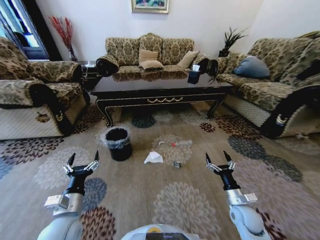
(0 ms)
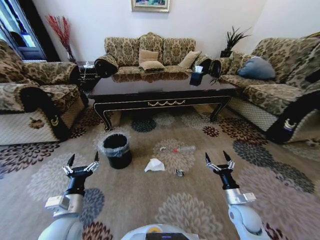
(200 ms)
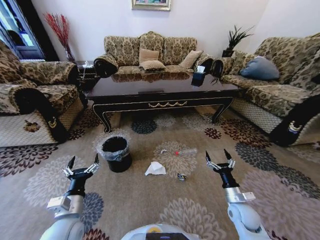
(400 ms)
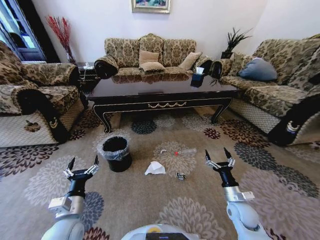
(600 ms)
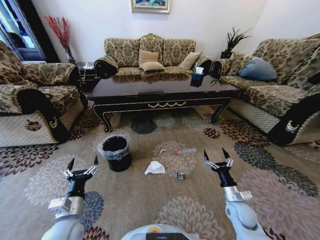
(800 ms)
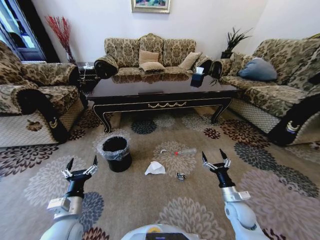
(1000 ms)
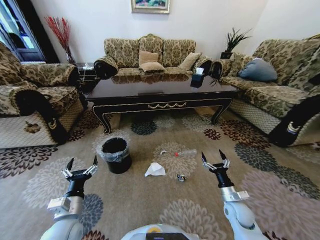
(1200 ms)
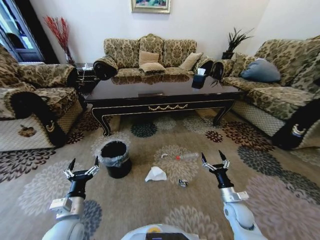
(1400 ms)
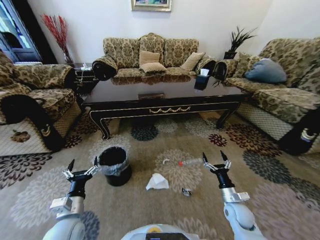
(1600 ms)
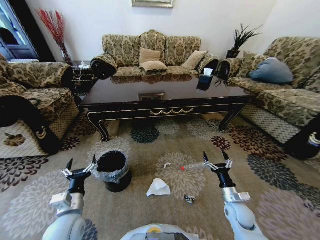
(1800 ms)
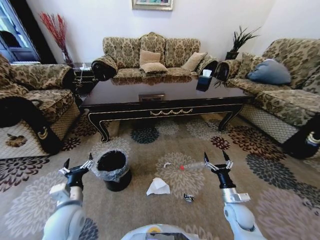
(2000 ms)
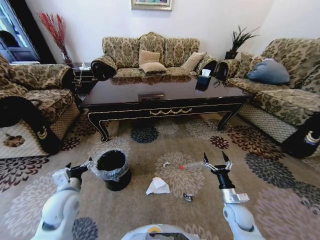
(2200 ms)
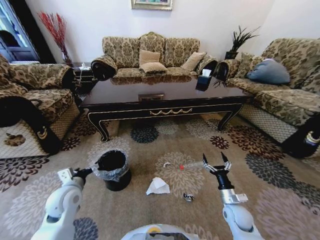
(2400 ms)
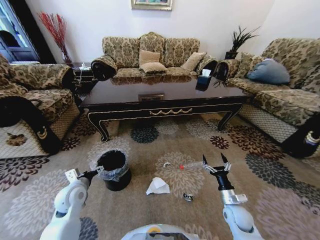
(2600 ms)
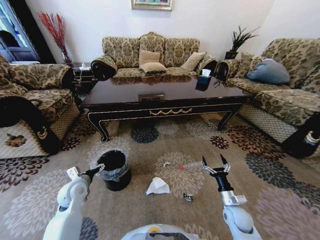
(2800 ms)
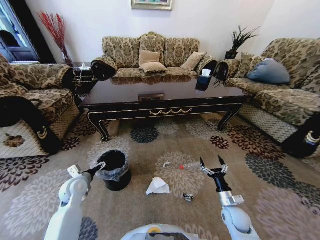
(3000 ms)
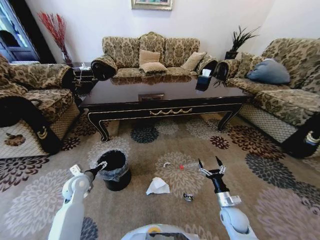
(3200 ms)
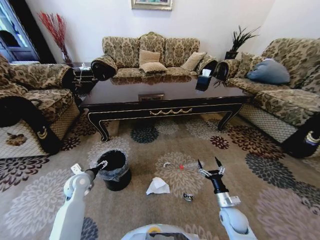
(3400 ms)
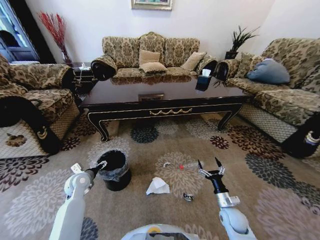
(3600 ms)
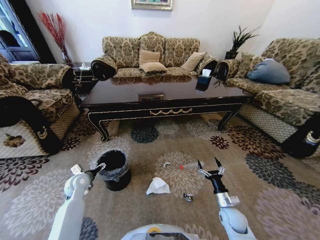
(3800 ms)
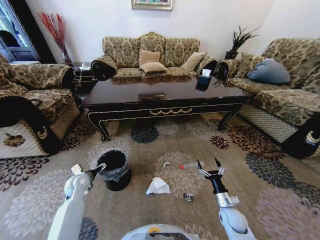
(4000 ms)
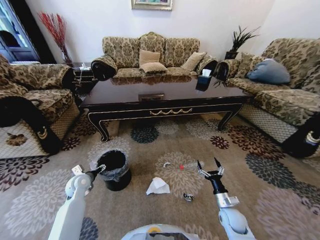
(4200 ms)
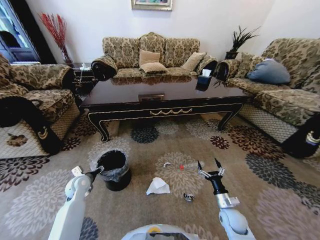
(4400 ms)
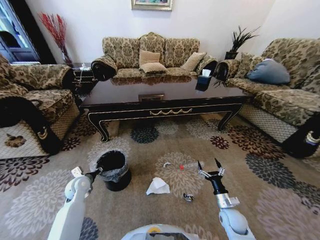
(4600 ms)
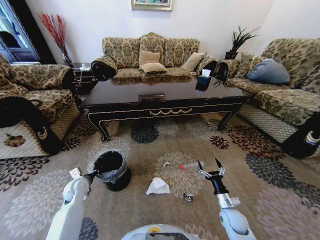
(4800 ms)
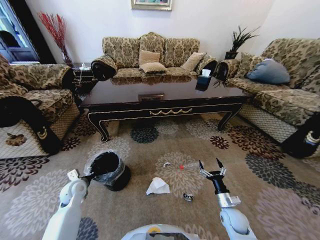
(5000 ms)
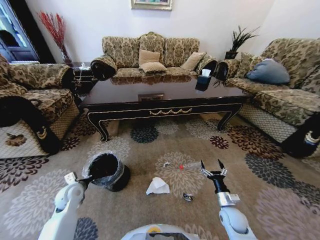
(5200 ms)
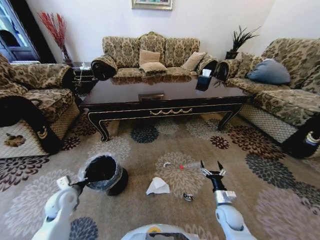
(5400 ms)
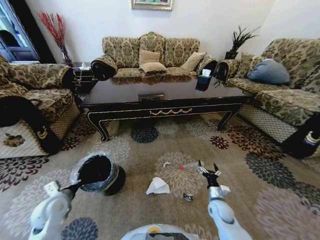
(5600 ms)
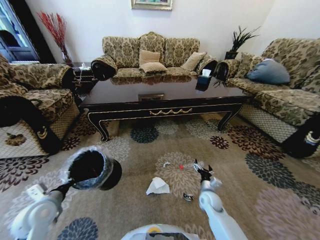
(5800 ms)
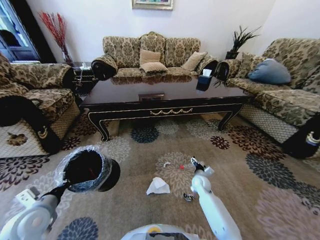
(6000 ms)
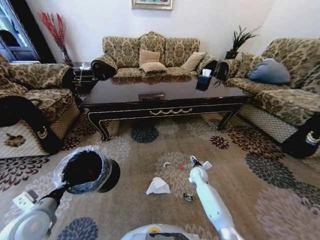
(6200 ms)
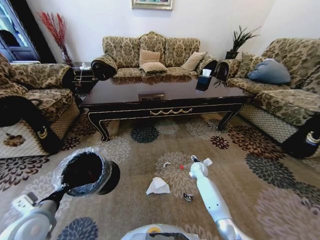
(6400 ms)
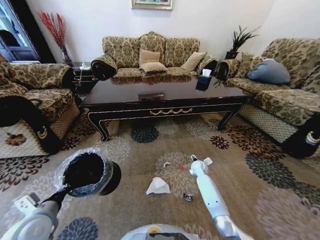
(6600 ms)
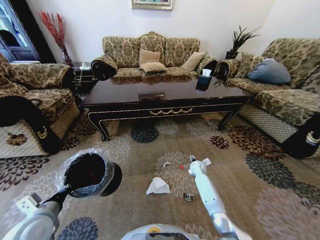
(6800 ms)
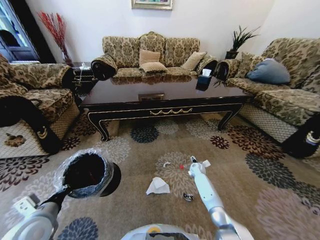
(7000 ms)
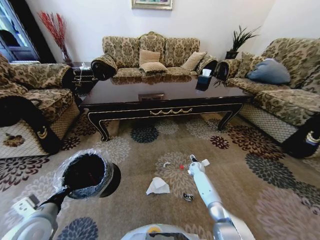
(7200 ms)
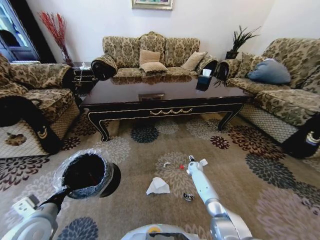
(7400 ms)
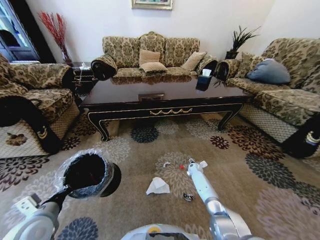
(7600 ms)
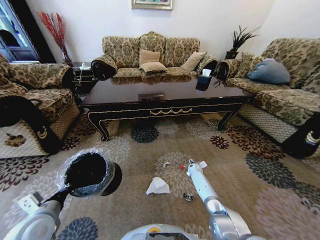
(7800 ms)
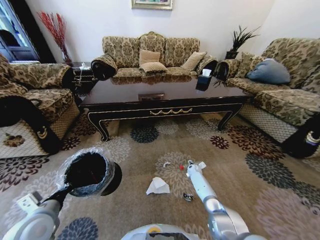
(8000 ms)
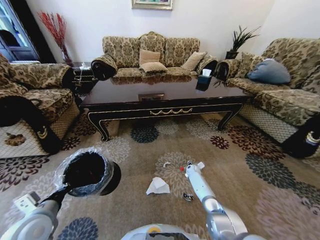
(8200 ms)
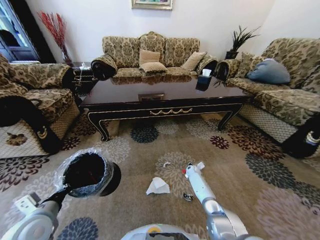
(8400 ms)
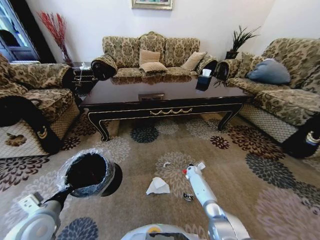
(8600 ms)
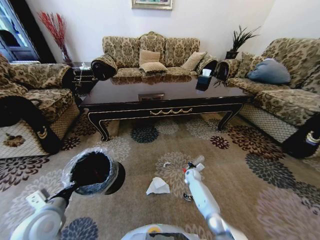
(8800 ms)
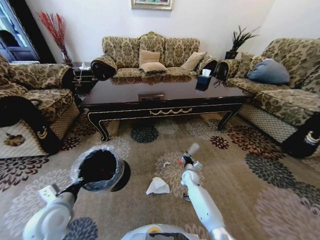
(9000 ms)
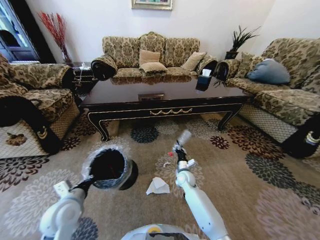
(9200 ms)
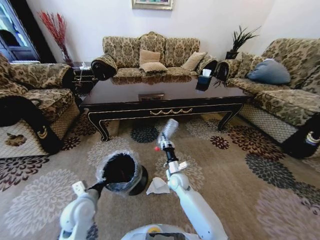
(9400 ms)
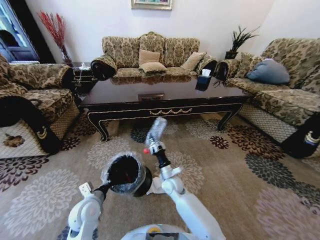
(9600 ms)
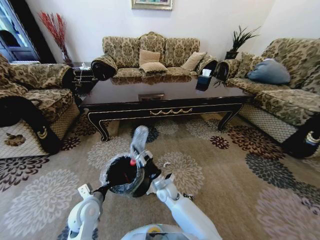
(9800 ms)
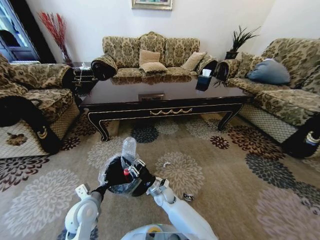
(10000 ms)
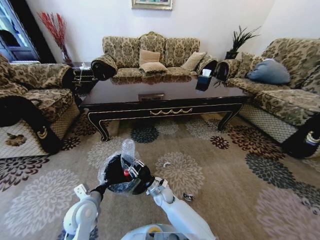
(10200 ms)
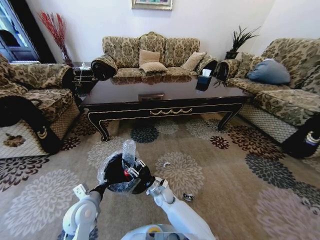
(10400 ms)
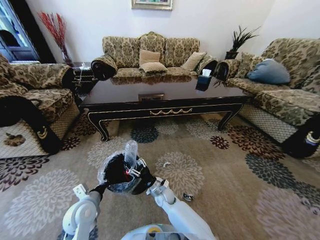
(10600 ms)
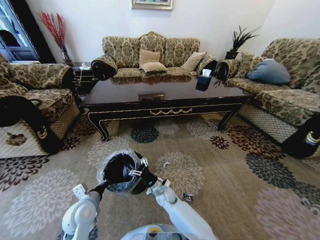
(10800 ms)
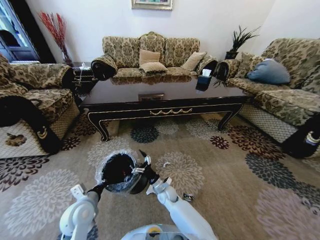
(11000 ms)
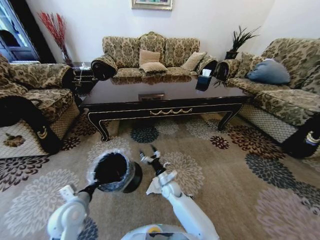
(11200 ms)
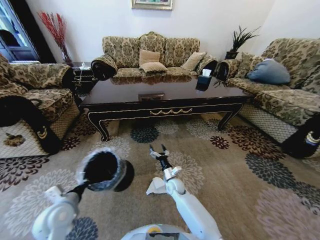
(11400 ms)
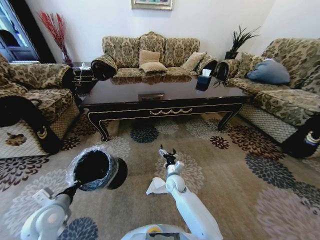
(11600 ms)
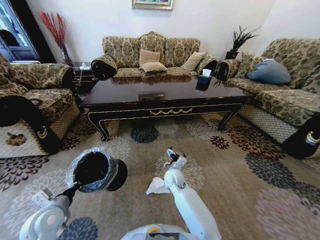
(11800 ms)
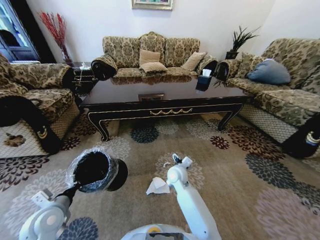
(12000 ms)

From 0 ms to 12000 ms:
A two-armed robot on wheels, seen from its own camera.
Task of the whole recording: Move to the front of the table and pick up the trash from the floor, then place it into the trash bin.
From 1600 ms to 3000 ms: The left gripper shifts about 15 cm forward and to the left.
From 3000 ms to 4400 ms: The left gripper shifts by some 5 cm.
From 4400 ms to 6000 ms: The left gripper shifts some 20 cm backward and upward, and closes. Meanwhile the right gripper goes approximately 20 cm forward and to the left.
From 6000 ms to 7600 ms: The right gripper travels forward and downward by approximately 15 cm.
From 7600 ms to 9000 ms: The right gripper heads backward, to the left and upward, covering approximately 10 cm, and closes.
From 9000 ms to 10400 ms: The right gripper moves to the left and backward, about 20 cm. Meanwhile the left gripper travels to the right and downward by roughly 10 cm.
From 10400 ms to 12000 ms: The left gripper moves to the left, approximately 10 cm. The right gripper shifts approximately 15 cm upward, to the right and forward, and opens its fingers.

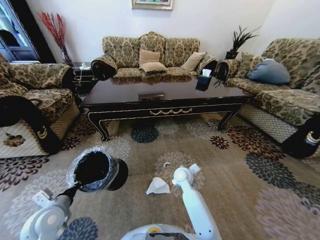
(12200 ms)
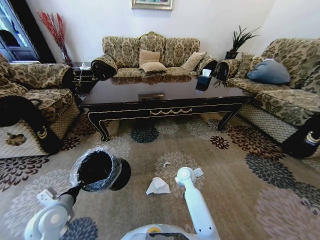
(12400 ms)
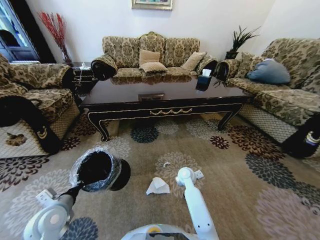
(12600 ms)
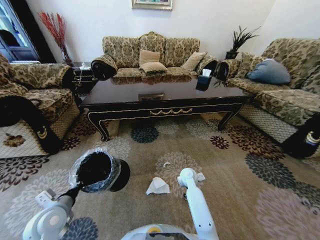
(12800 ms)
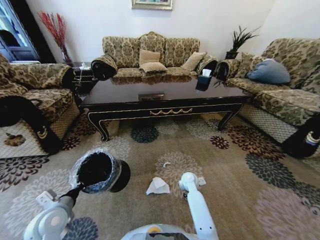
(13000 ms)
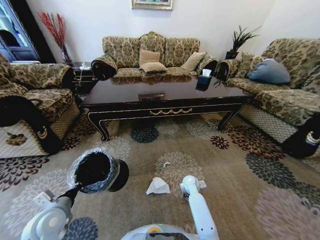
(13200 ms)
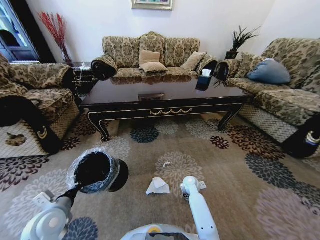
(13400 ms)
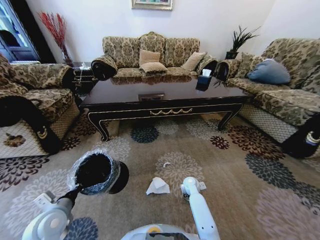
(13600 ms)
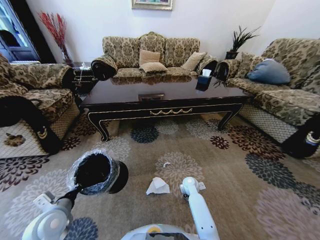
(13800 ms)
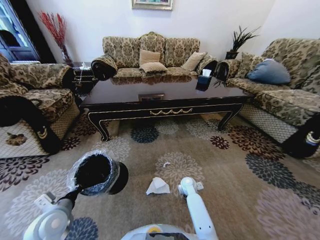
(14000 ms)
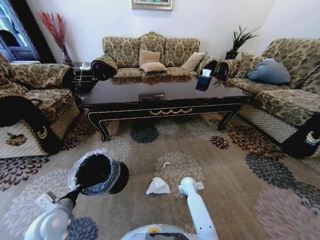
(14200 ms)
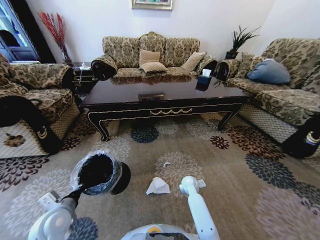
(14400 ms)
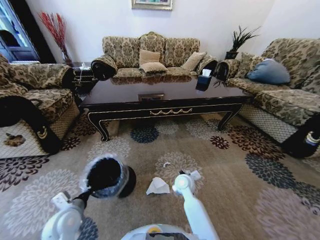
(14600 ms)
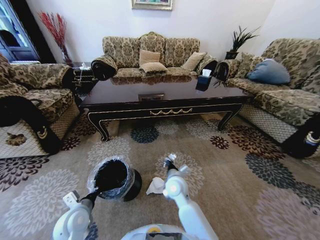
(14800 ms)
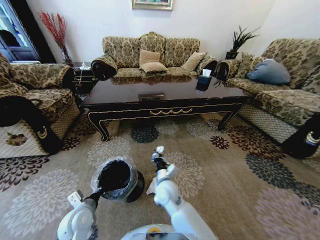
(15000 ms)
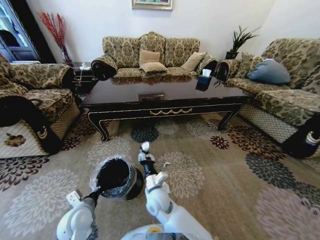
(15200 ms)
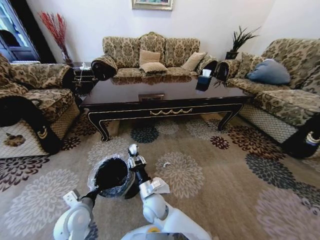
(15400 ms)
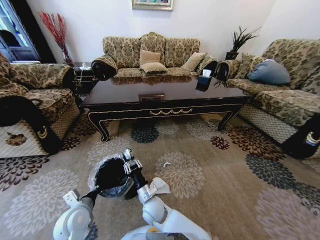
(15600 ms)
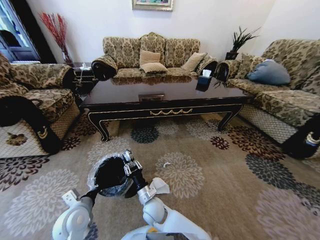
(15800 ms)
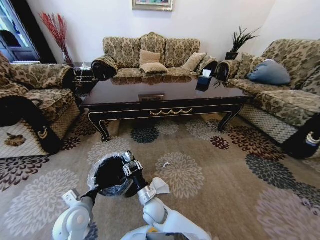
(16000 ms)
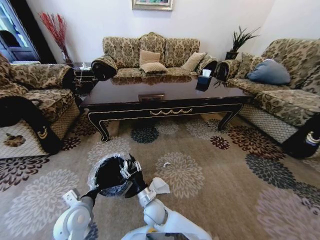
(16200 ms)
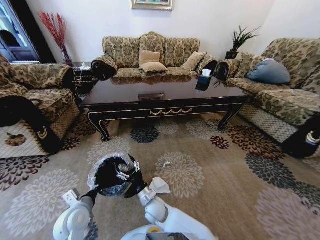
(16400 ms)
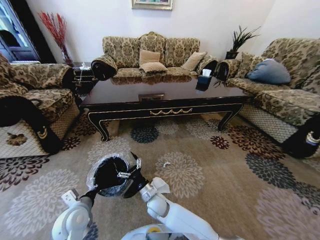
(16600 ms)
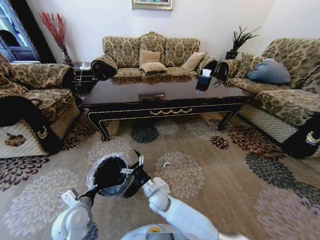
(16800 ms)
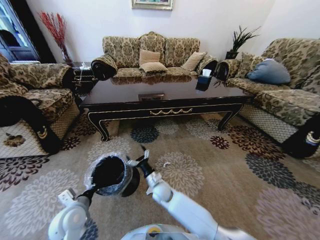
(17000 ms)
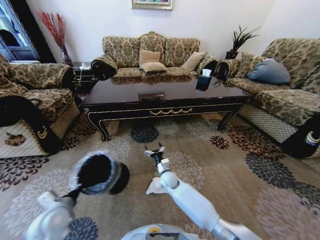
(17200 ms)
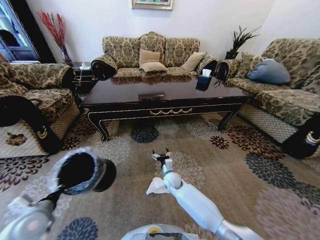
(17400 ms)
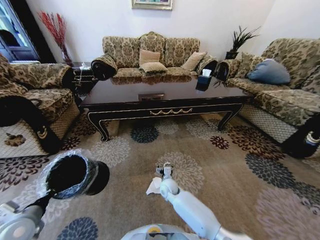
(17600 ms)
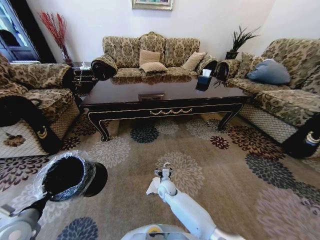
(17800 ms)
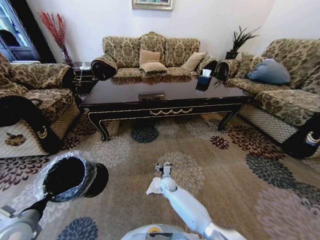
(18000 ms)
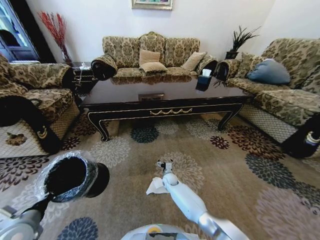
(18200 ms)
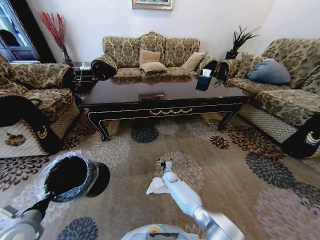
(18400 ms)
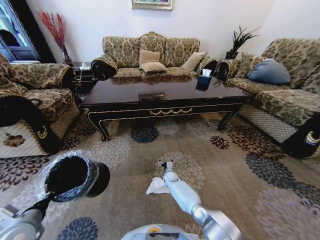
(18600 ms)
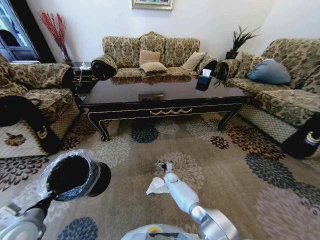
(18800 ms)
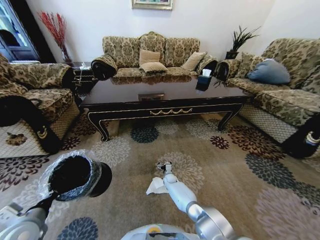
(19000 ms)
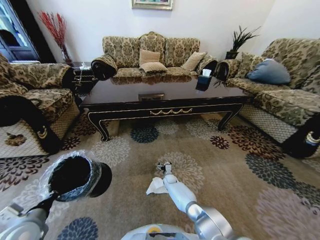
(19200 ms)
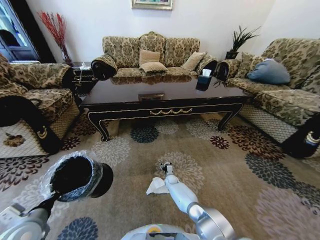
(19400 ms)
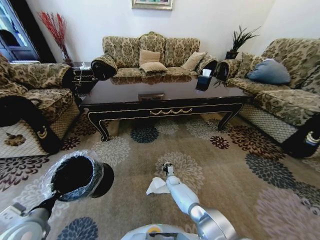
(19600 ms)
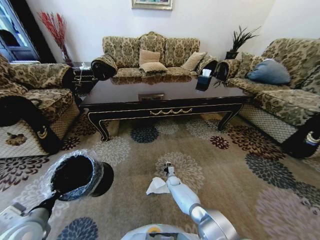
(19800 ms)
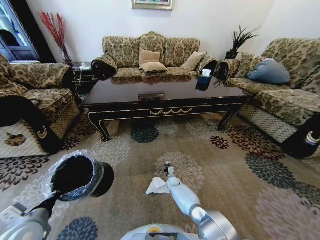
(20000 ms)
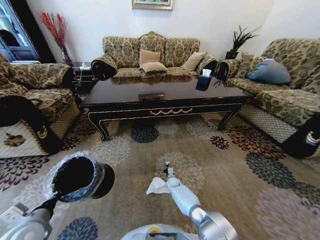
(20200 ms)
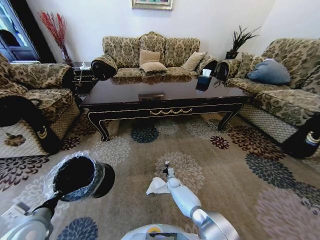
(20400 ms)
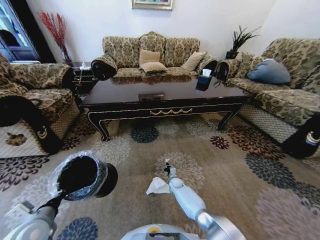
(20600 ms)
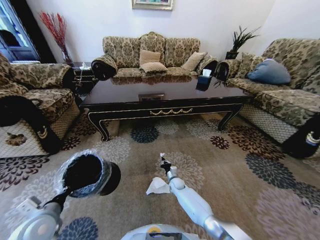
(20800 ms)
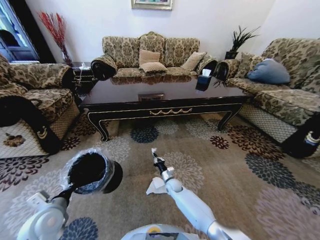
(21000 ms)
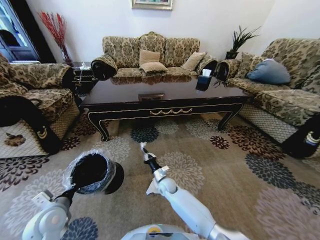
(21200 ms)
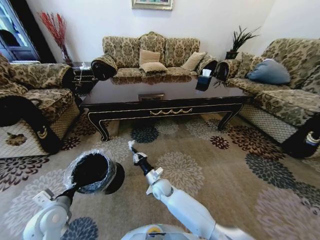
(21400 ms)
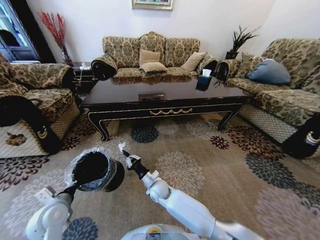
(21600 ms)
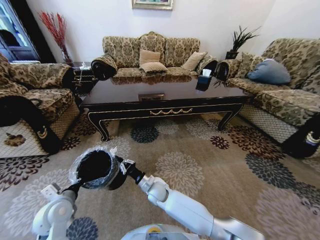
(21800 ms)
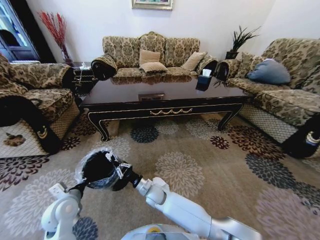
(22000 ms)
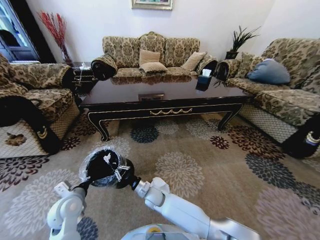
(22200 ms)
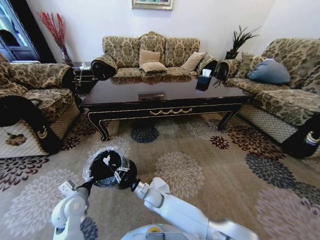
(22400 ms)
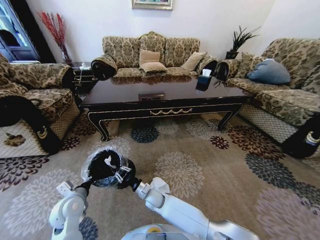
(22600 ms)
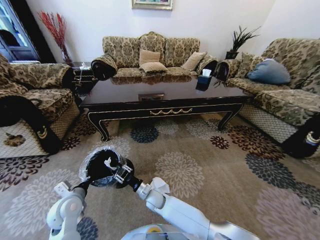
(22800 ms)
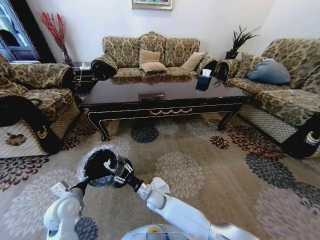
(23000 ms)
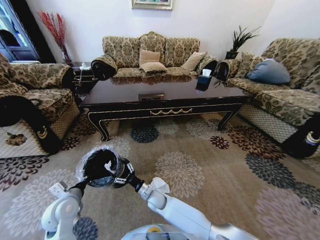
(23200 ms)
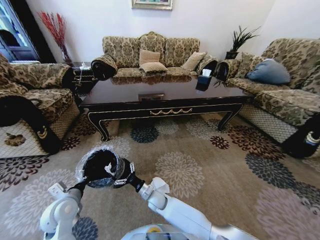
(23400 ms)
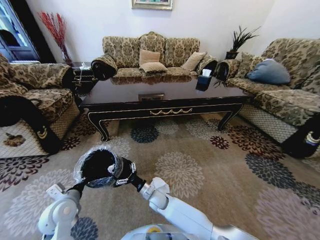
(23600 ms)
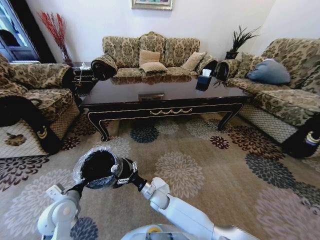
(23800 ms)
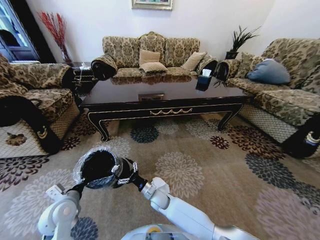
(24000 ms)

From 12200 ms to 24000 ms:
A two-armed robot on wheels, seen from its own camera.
Task of the whole recording: Move to the front of the table and pick up the trash from the floor, then place it into the trash bin.
From 12200 ms to 13600 ms: The right gripper heads downward and to the right, covering some 15 cm.
From 13600 ms to 15200 ms: The left gripper goes about 5 cm to the right. Meanwhile the right gripper travels to the left, upward and backward by roughly 25 cm, and closes up.
From 15200 ms to 16600 ms: The right gripper travels downward by approximately 5 cm, and opens.
From 16600 ms to 18200 ms: The left gripper moves to the left and backward, roughly 15 cm, while the right gripper travels forward, to the right and downward by about 20 cm.
From 18200 ms to 19600 ms: The right gripper heads downward, covering some 10 cm, and closes.
From 19600 ms to 21000 ms: The left gripper shifts by roughly 5 cm. The right gripper is displaced upward and backward by some 10 cm, and closes.
From 21000 ms to 22600 ms: The left gripper ends up some 5 cm from where it was. Meanwhile the right gripper goes about 15 cm to the left, backward and upward.
From 22600 ms to 24000 ms: The right gripper opens its fingers.
